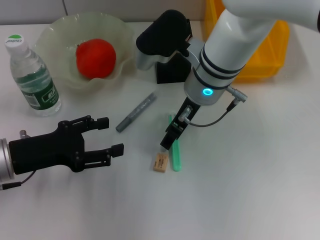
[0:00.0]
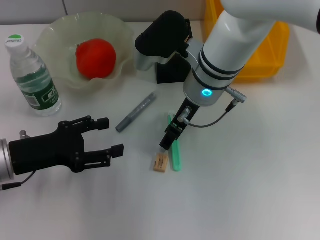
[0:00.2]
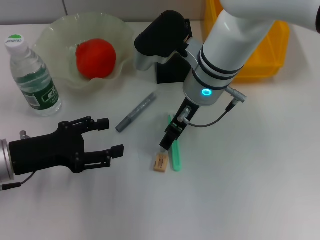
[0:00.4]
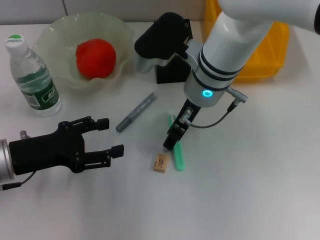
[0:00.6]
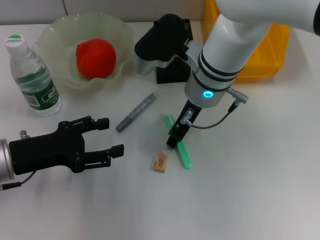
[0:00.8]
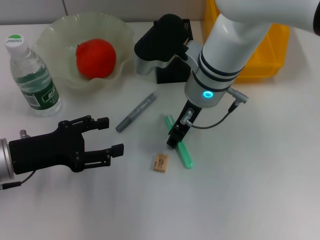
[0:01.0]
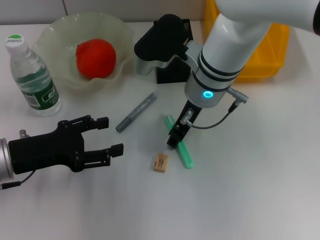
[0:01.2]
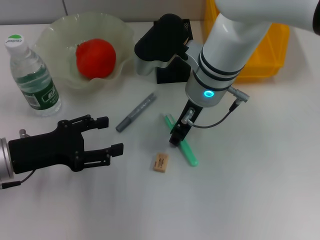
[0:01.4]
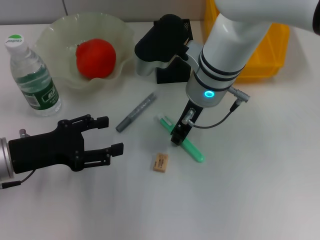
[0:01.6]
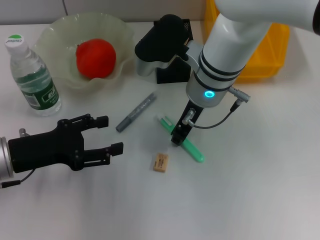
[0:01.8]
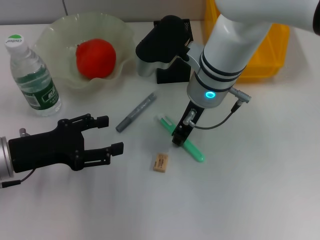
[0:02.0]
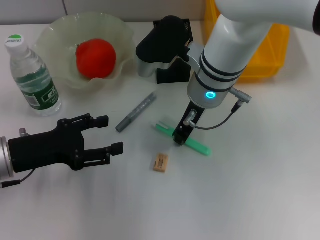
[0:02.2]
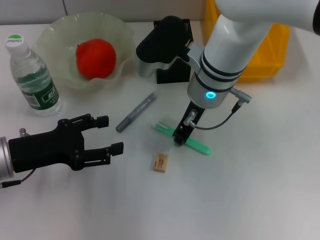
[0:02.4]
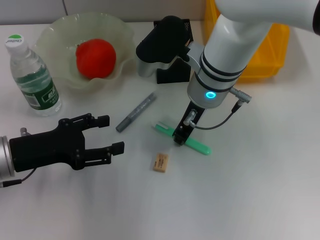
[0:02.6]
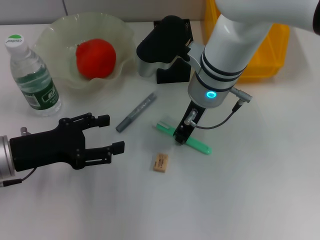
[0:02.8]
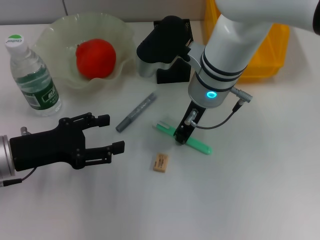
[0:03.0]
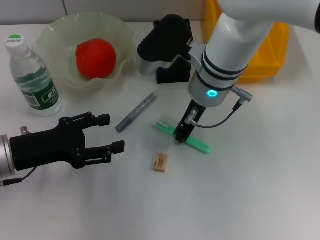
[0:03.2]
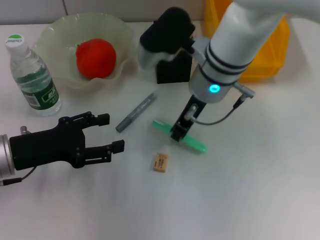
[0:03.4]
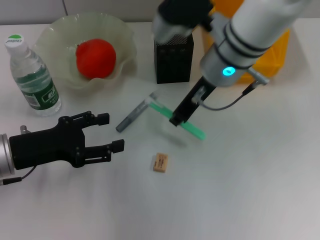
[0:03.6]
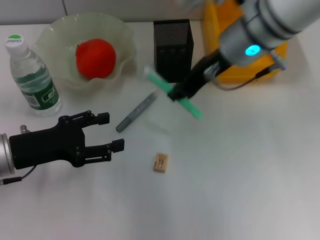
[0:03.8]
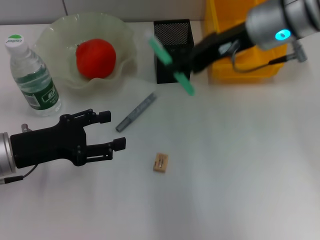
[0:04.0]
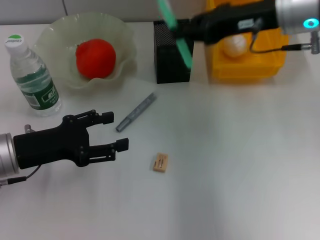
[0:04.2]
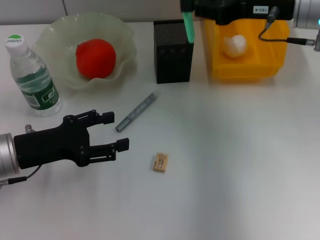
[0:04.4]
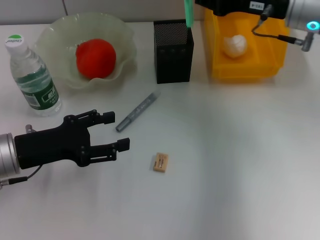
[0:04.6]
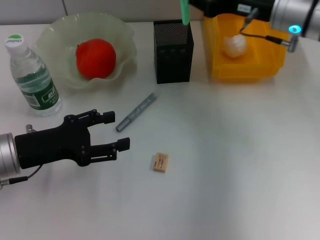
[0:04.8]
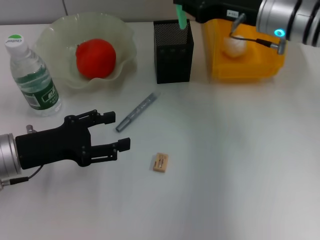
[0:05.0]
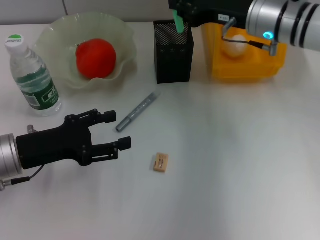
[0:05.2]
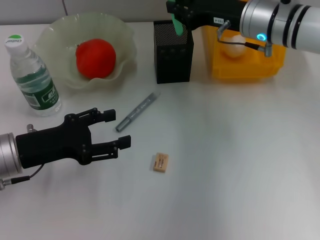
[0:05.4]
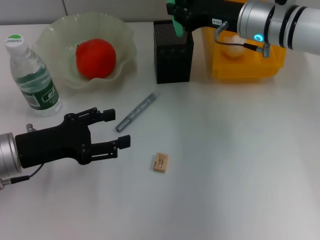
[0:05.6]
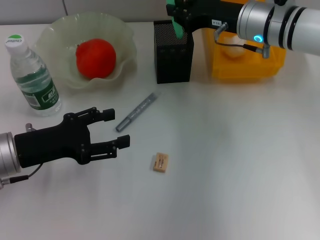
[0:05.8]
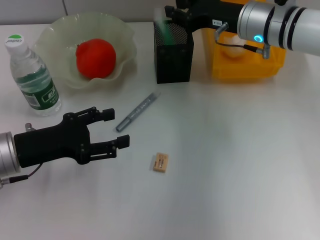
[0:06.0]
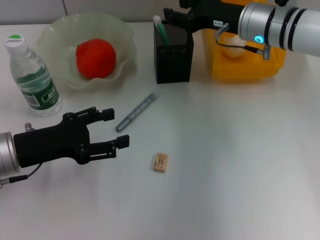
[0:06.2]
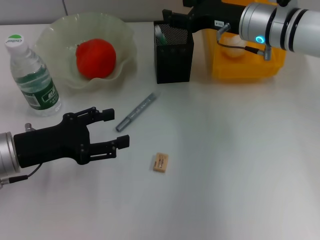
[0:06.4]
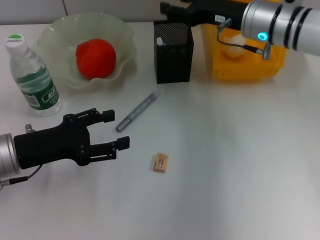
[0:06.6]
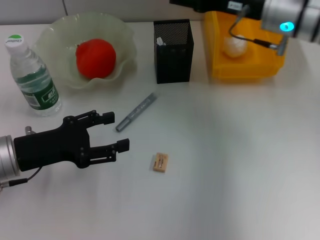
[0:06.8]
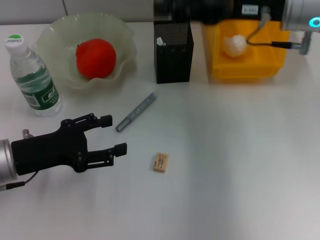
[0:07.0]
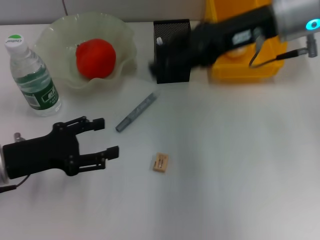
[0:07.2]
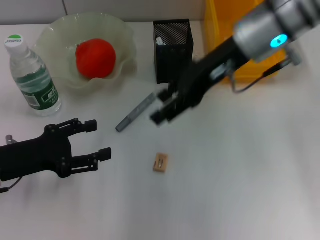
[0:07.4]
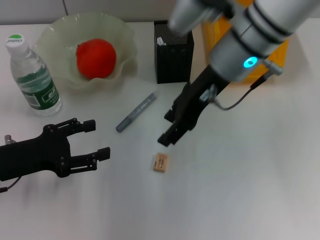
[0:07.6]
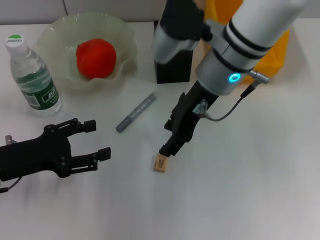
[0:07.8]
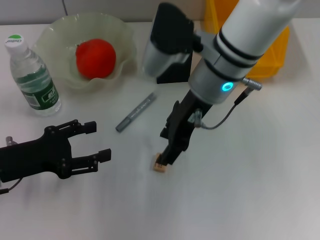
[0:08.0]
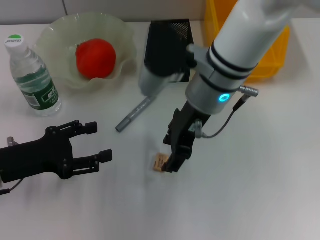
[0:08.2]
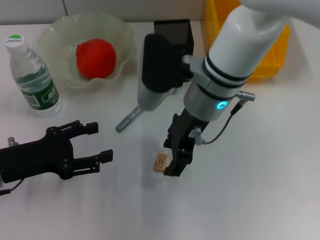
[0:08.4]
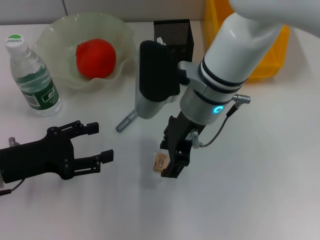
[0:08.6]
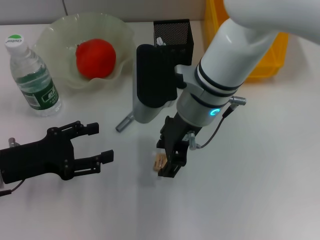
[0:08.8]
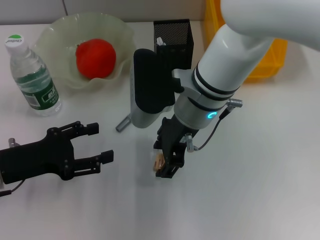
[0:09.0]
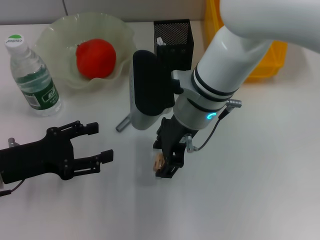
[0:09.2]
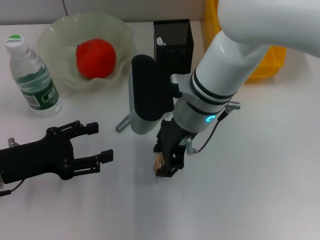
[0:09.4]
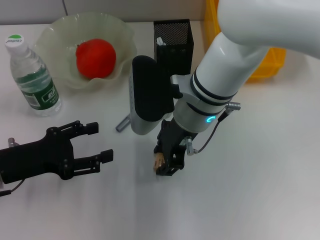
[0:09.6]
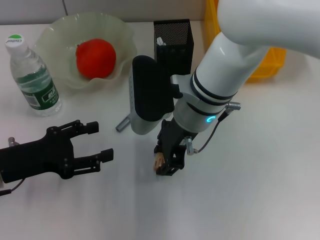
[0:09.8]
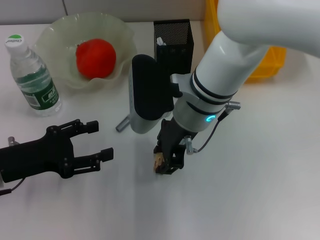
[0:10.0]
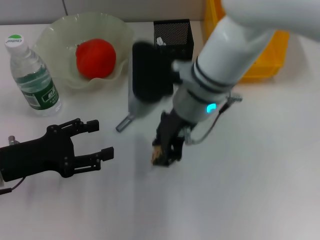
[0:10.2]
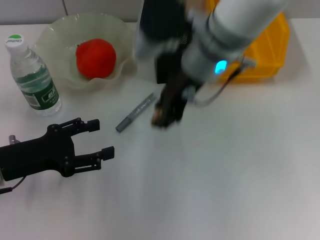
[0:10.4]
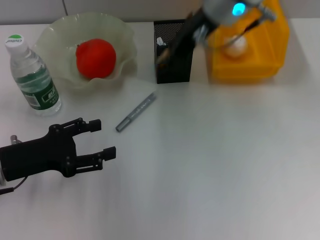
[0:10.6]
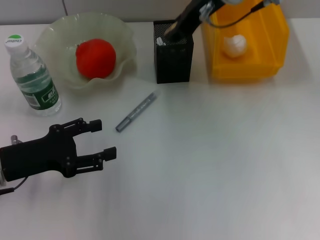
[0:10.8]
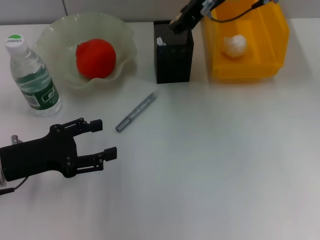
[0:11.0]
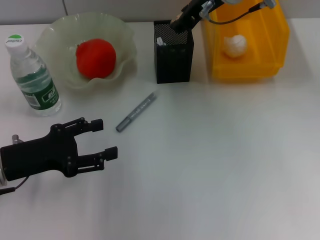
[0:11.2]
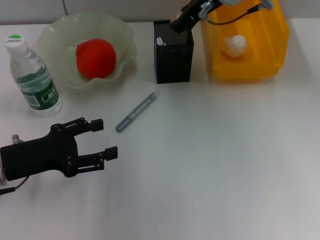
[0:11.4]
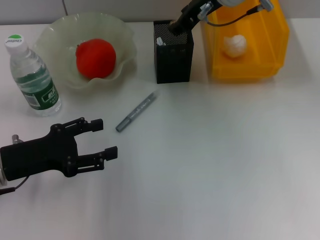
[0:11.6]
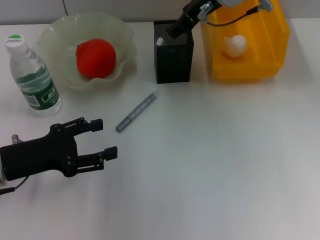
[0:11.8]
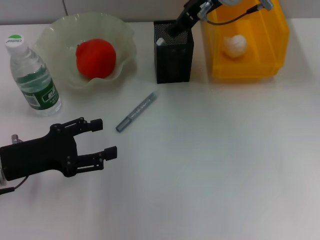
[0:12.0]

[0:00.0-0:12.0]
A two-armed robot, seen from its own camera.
Step, 0.0 to 3.0 s: Grab the blue utility knife with the right hand.
Step, 3.2 to 6.0 s: Place the blue utility knife into the pen holder with the right hand.
Step, 6.2 to 9.8 s: Grab the eraser with the right hand.
0.0 to 1.6 s: The right gripper closes its fingers.
1.6 to 3.0 s: Both grippers stay about where they are.
3.0 to 4.4 s: The right gripper goes about 15 cm to the right and upward.
4.4 to 6.0 s: The right gripper goes some 5 cm downward.
6.0 to 7.6 s: The right gripper goes approximately 10 cm to the left, backward and upward, and opens.
7.6 to 9.0 s: The right gripper shifts some 5 cm downward.
9.0 to 10.4 s: The right gripper heads upward, covering some 5 cm.
10.4 to 12.0 s: The right gripper is displaced forward by roughly 10 cm, and opens.

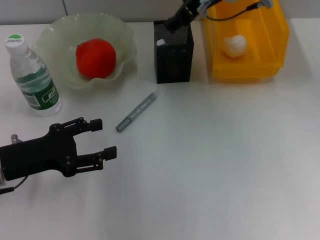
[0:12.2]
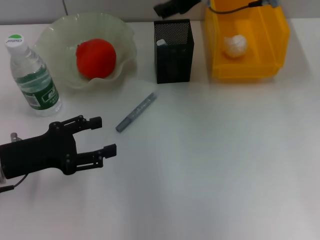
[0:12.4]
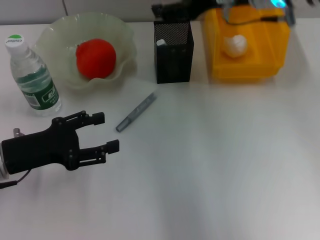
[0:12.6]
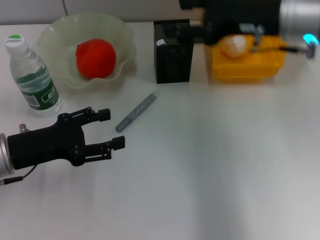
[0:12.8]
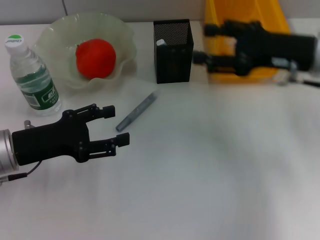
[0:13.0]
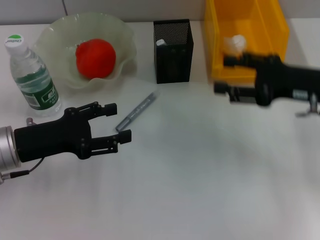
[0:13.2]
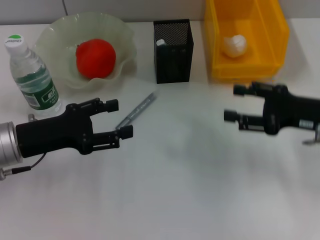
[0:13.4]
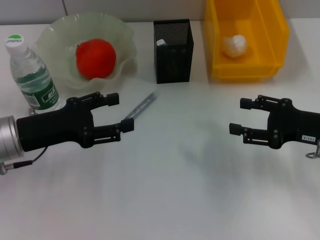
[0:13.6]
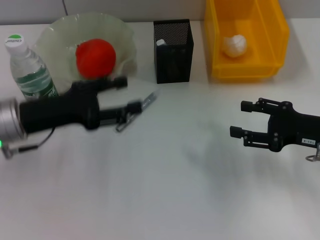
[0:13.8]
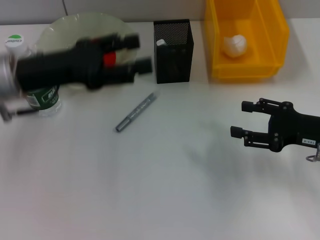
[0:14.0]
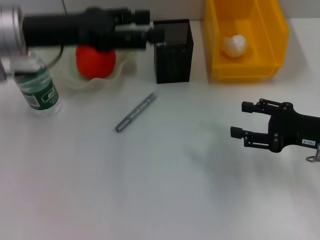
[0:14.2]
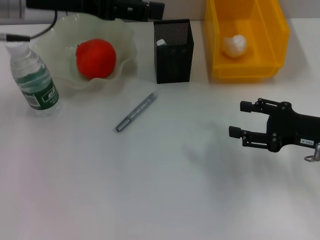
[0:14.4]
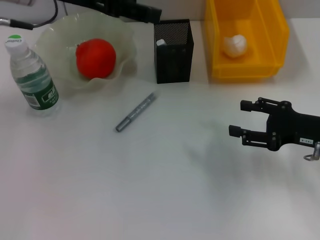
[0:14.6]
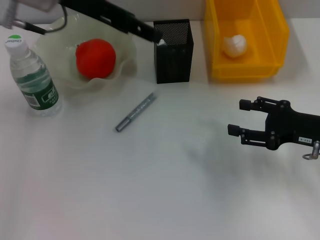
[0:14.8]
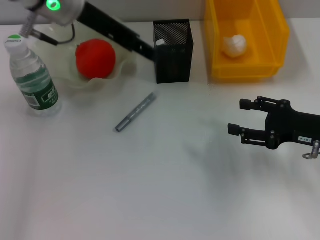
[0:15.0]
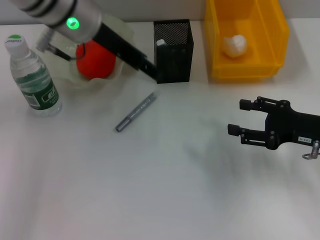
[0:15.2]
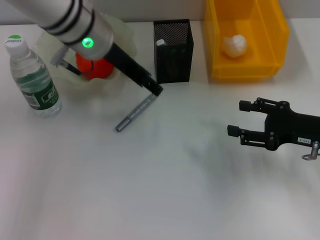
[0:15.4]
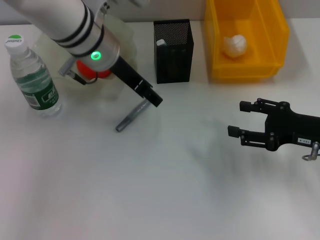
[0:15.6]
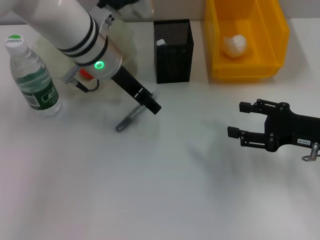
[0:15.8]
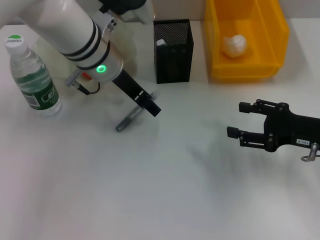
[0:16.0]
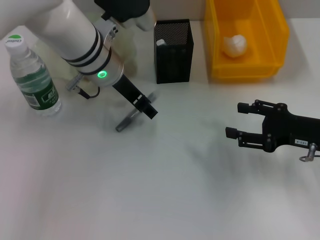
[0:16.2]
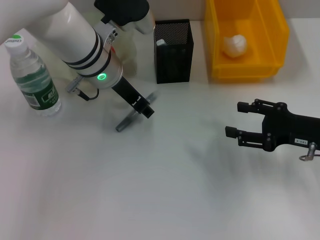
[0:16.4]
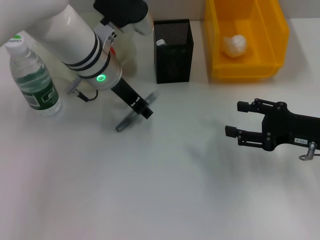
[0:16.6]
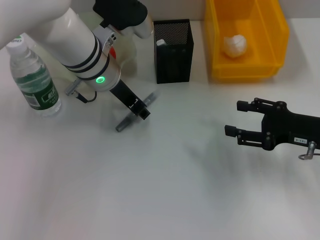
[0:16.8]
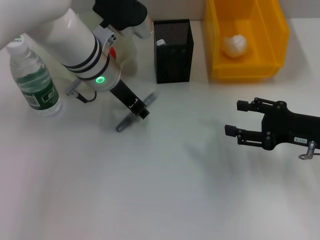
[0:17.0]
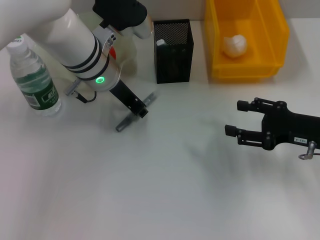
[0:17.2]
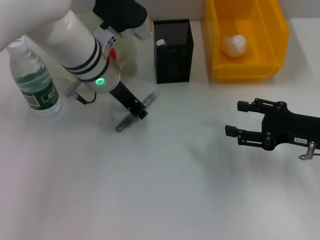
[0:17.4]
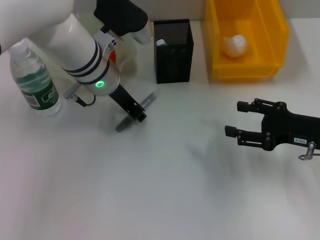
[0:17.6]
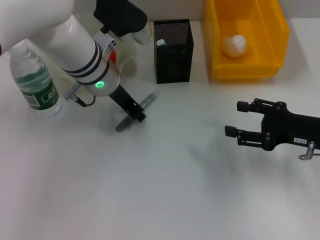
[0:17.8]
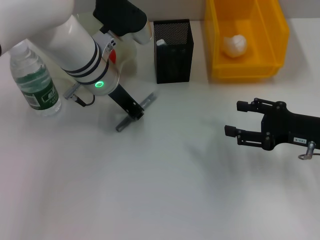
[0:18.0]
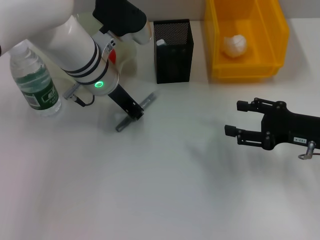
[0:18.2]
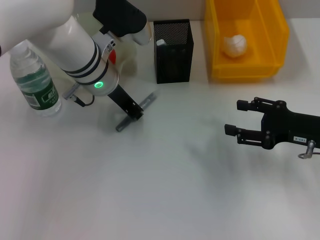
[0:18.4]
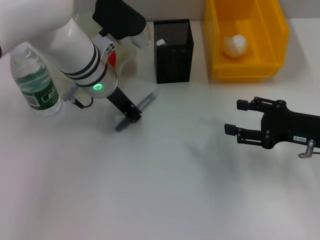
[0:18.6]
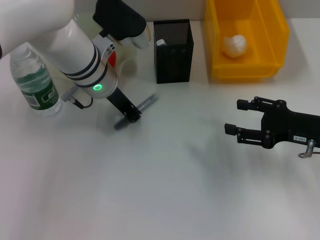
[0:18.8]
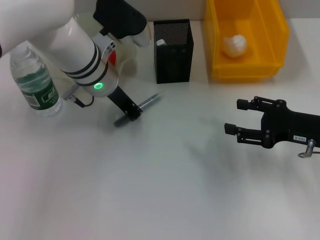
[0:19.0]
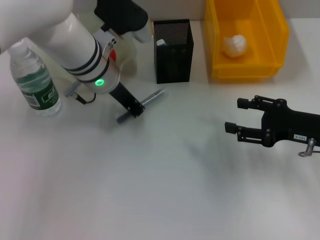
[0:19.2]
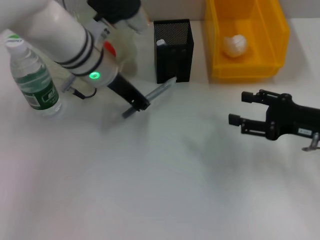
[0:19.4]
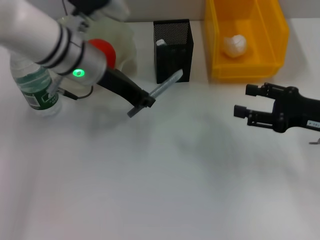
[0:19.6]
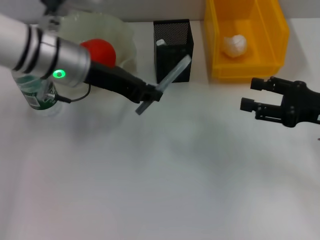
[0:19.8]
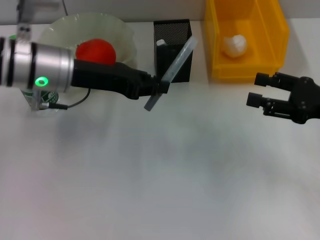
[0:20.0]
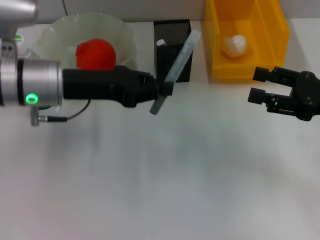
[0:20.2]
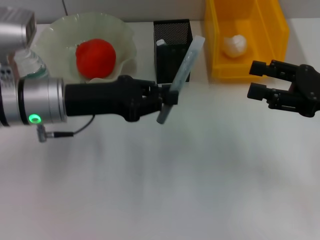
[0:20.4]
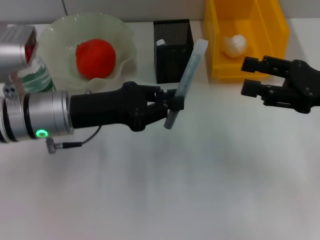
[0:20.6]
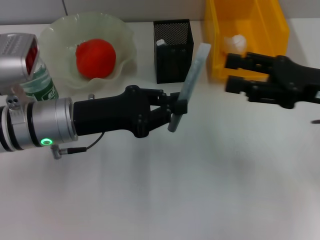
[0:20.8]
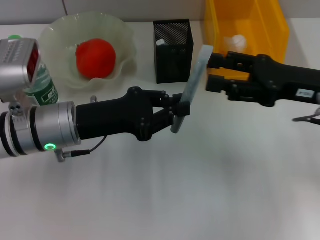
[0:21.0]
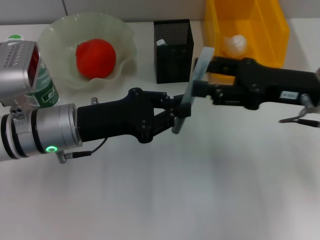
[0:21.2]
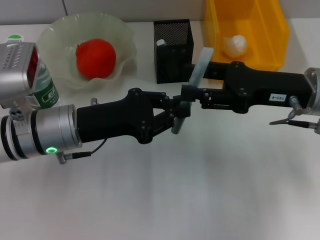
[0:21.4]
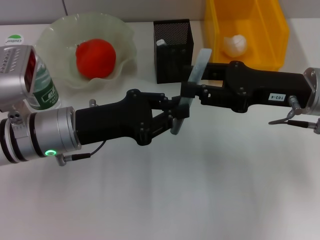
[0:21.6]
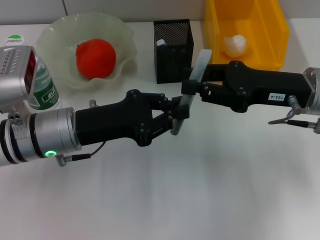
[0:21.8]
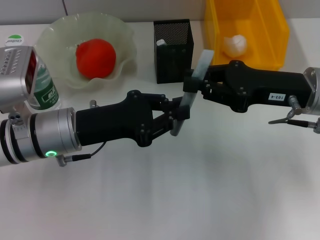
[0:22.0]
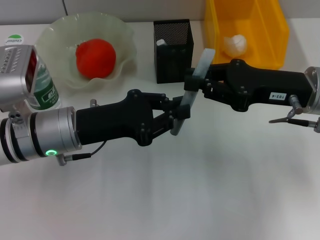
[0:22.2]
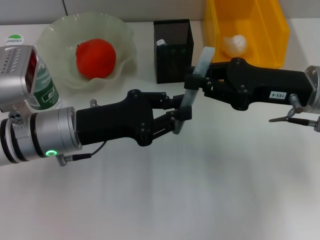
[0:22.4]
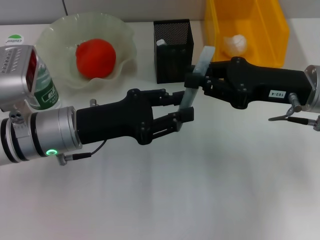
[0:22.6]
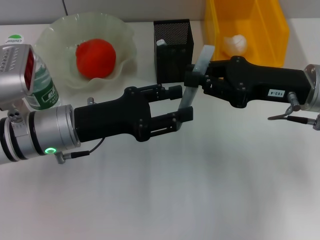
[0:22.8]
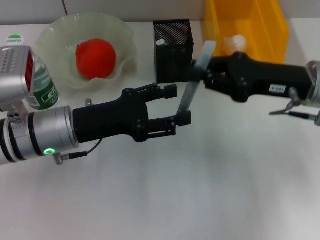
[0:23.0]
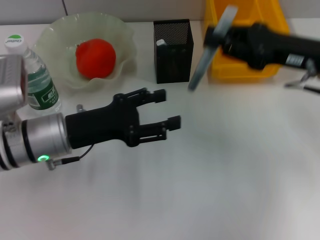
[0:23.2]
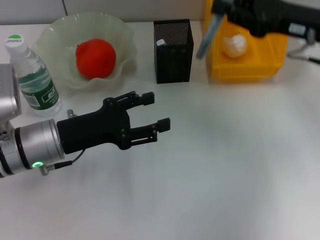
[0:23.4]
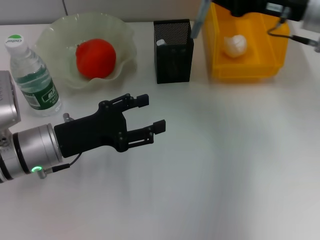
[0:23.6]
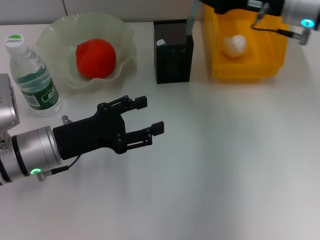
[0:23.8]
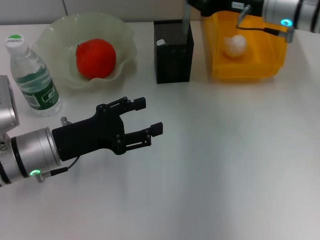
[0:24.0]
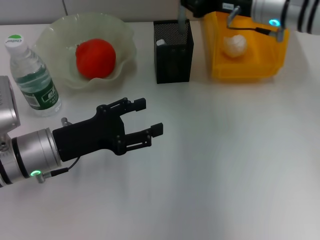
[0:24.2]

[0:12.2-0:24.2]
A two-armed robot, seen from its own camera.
Step, 12.4 to 18.8 s: Grab the gray glue with the left hand.
Step, 19.0 to 22.8 s: Pass the gray glue from the left hand to the right hand.
12.2 to 13.8 s: The right gripper is displaced to the right, backward and downward by roughly 30 cm. The left gripper ends up about 5 cm from where it was.
13.8 to 15.2 s: The left gripper moves to the right, upward and forward, roughly 20 cm.
15.2 to 16.6 s: The left gripper goes about 10 cm downward.
16.6 to 18.2 s: The left gripper closes.
18.2 to 19.8 s: The left gripper shifts about 5 cm to the left.
19.8 to 21.2 s: The left gripper travels backward and downward by approximately 10 cm. Meanwhile the right gripper moves to the left, roughly 5 cm.
21.2 to 22.6 s: The right gripper closes.
22.6 to 24.2 s: The left gripper ends up about 5 cm from where it was, and opens. Meanwhile the right gripper heads forward and to the left, covering some 15 cm.
